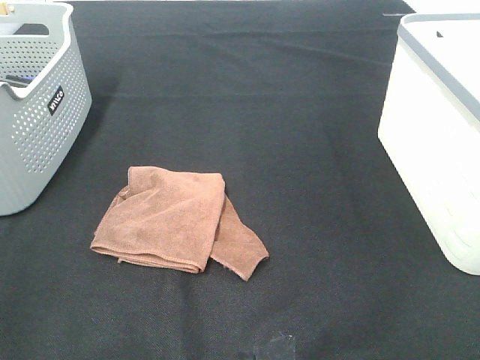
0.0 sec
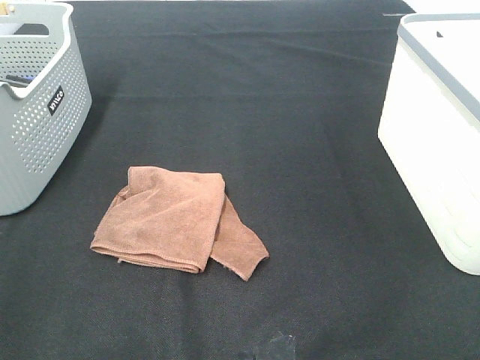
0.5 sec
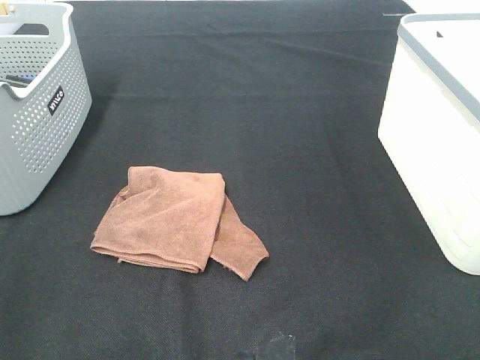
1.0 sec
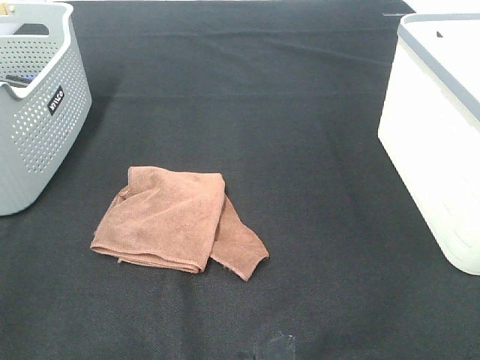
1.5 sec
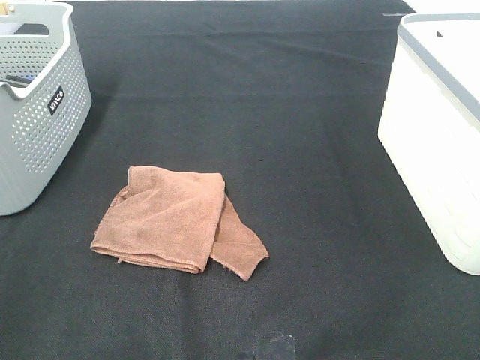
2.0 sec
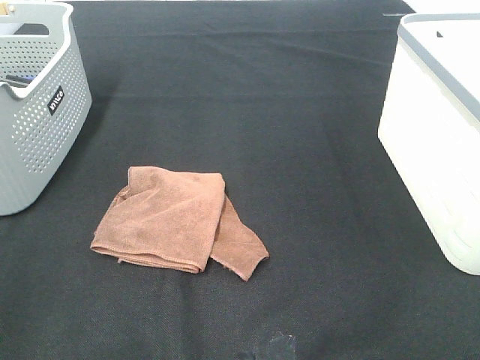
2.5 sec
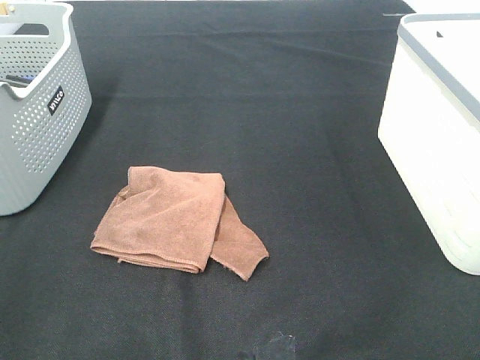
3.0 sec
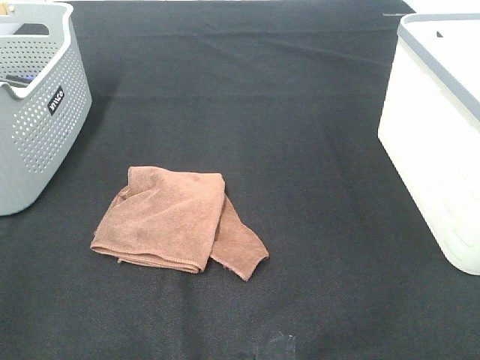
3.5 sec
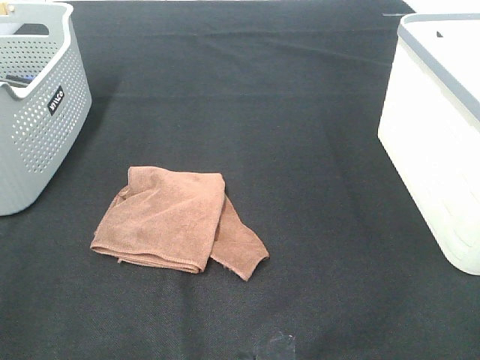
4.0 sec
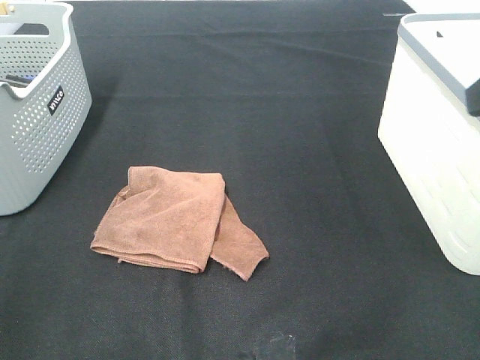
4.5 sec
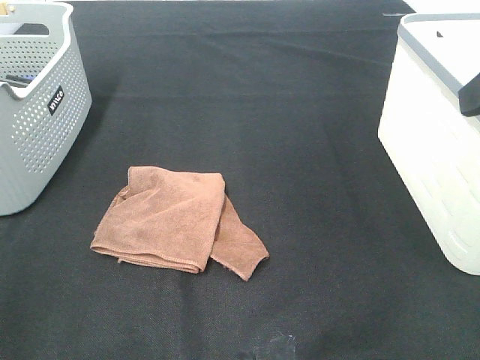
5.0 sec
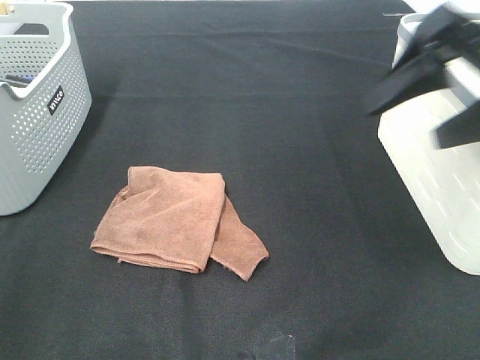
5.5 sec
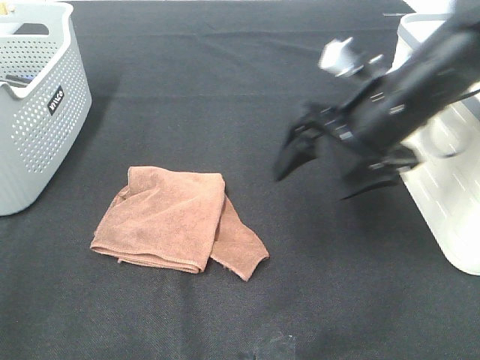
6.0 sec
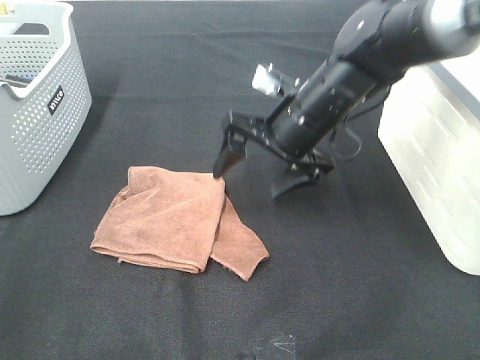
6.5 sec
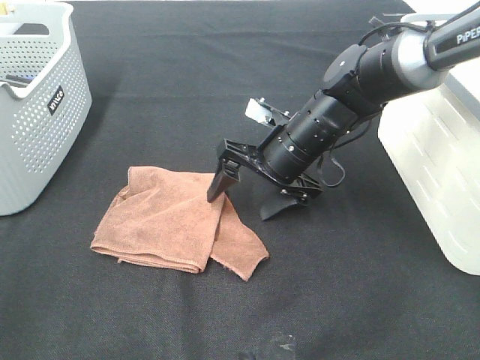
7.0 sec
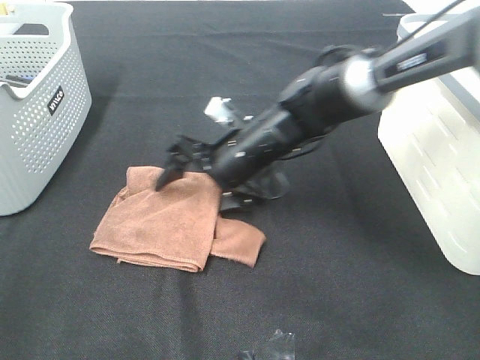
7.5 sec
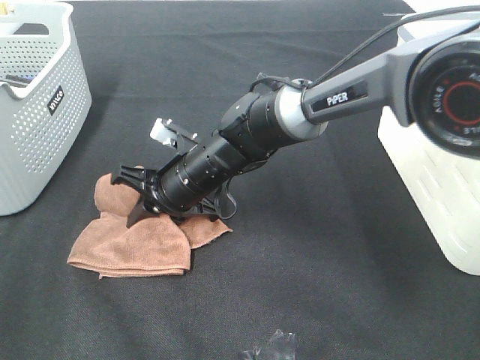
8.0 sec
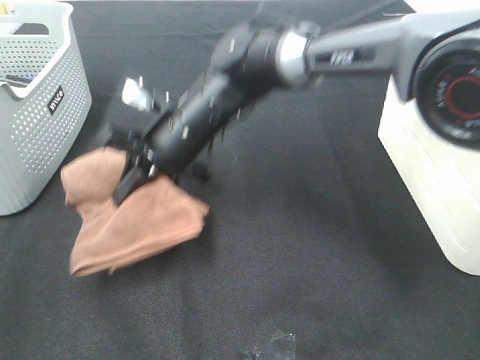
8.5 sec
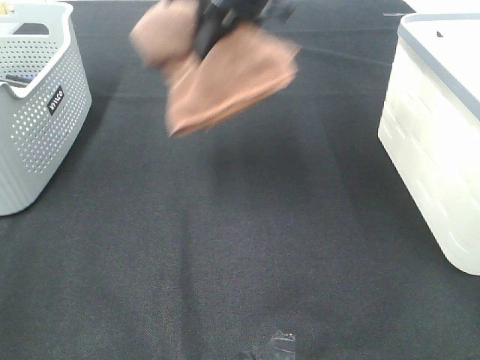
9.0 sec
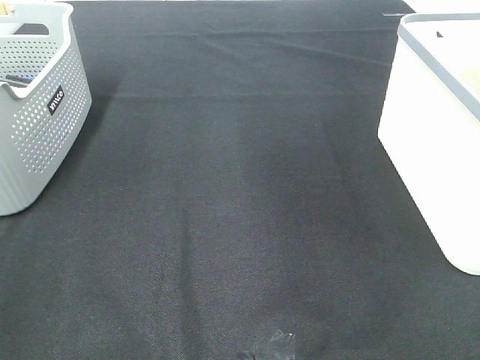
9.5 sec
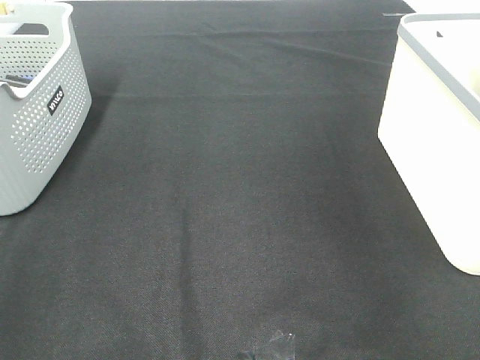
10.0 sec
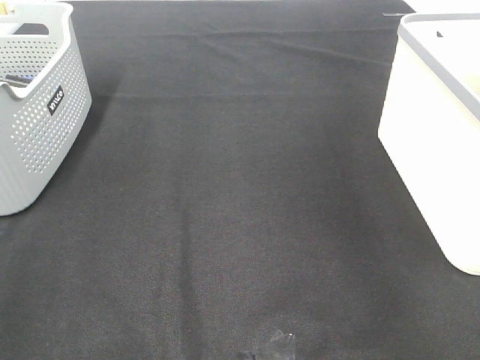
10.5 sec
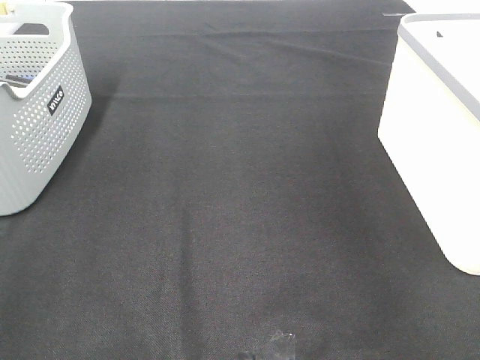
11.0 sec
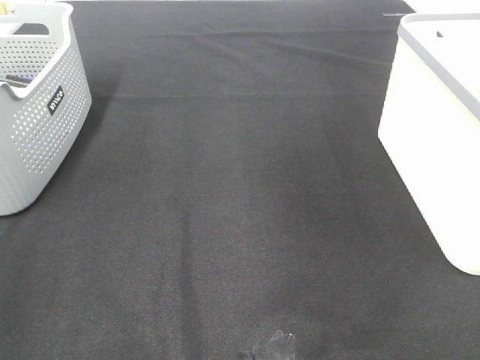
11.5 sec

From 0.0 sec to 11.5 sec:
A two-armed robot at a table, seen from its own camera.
Step, from 0.0 sec to 8.0 sec: Right hand: grab the folded brown towel.
Step, from 8.5 sec to 11.0 sec: Right hand: place the brown towel in right basket.
From 0.0 sec to 2.0 sec: Both grippers stay put.
From 4.0 sec to 6.0 sec: The right gripper heads forward, downward and to the left, covering some 30 cm.
From 6.0 sec to 7.5 sec: The right gripper goes some 20 cm to the left and downward.
From 7.5 sec to 9.5 sec: The right gripper is displaced upward and to the right by approximately 50 cm, and closes.

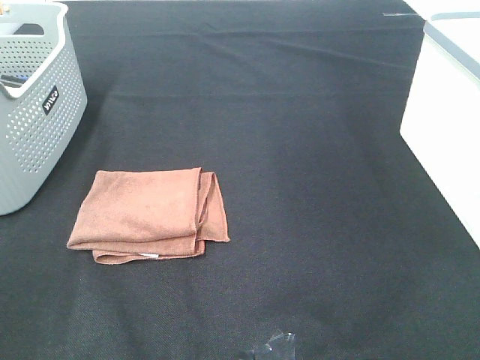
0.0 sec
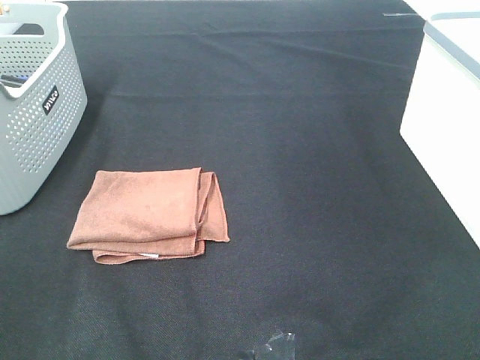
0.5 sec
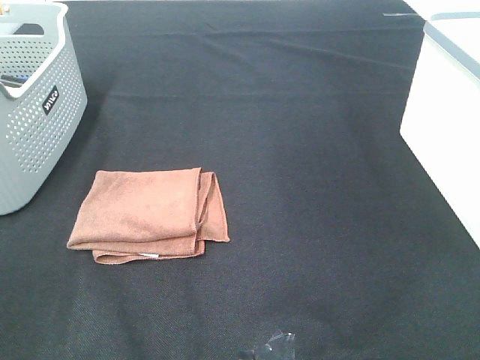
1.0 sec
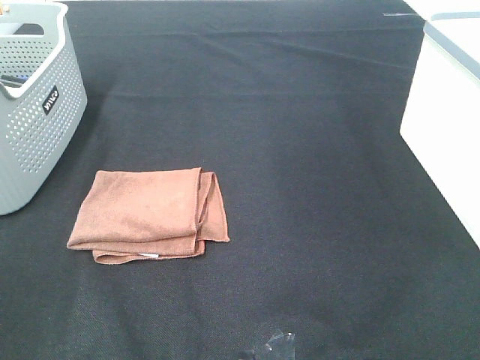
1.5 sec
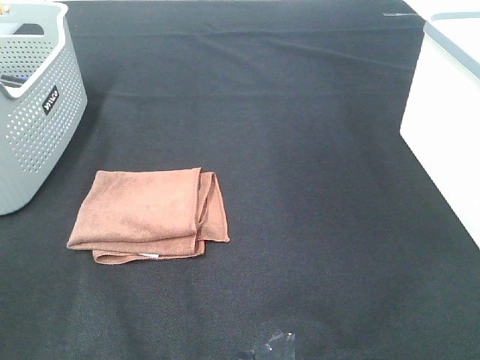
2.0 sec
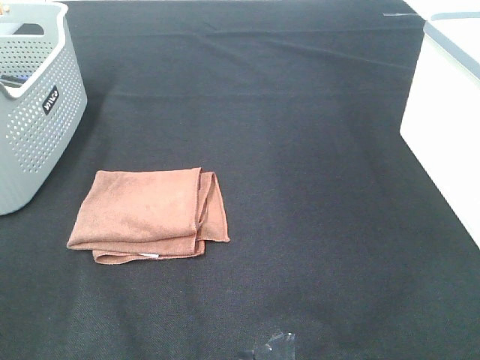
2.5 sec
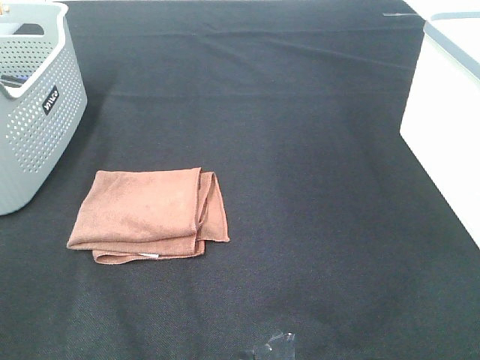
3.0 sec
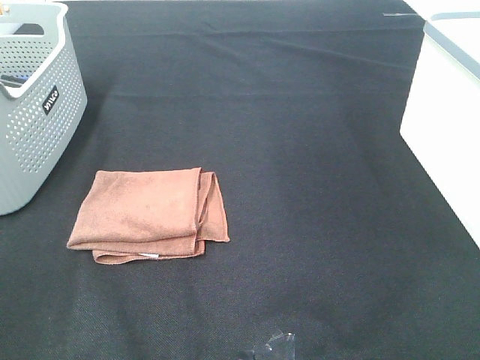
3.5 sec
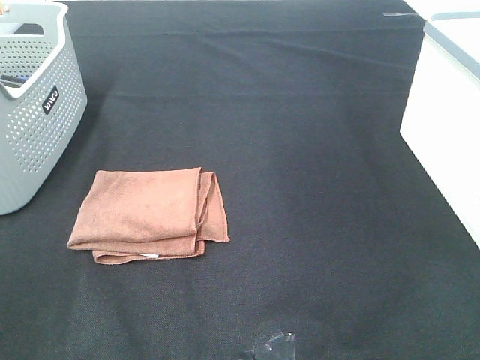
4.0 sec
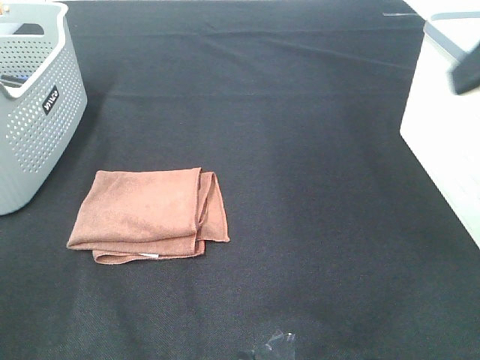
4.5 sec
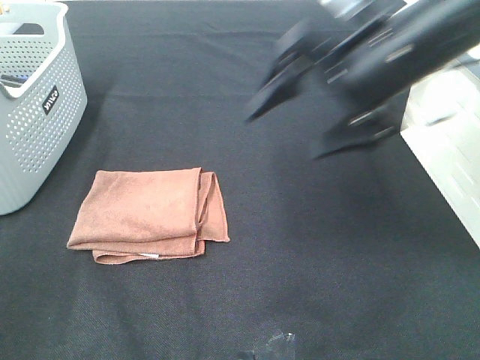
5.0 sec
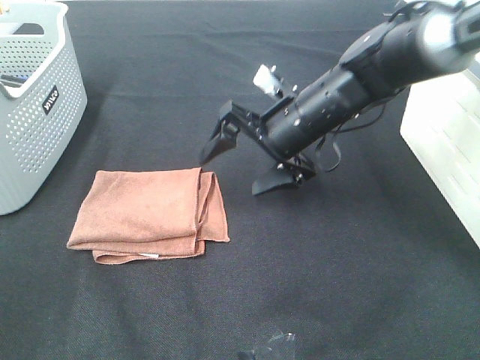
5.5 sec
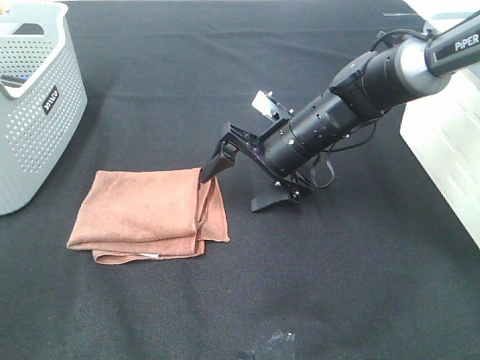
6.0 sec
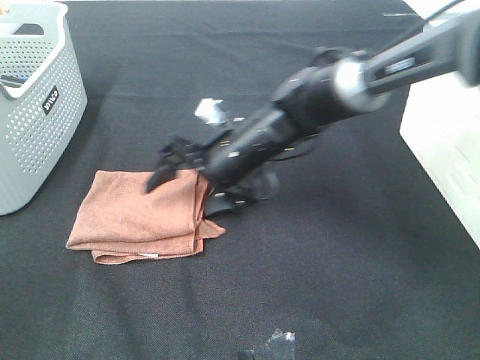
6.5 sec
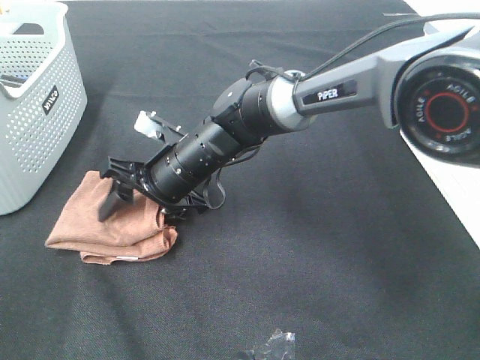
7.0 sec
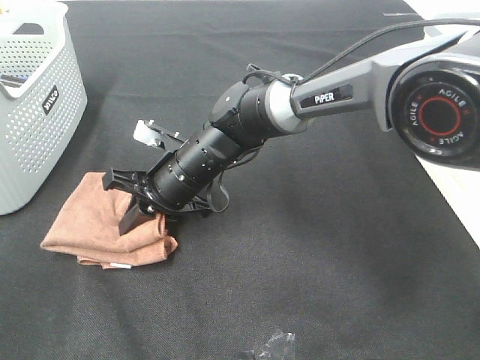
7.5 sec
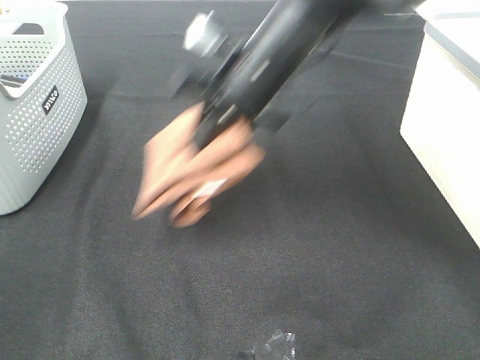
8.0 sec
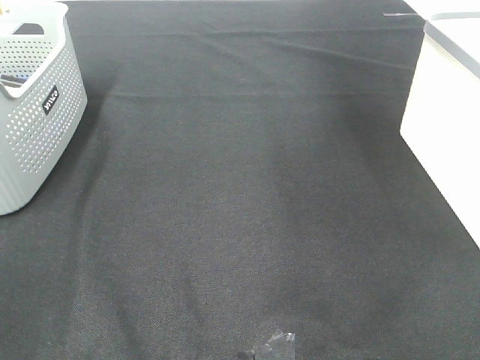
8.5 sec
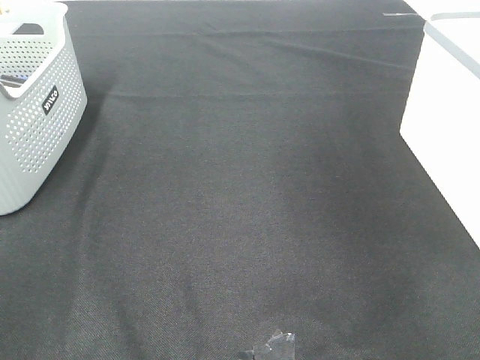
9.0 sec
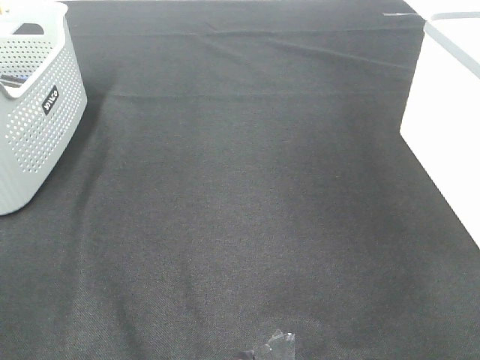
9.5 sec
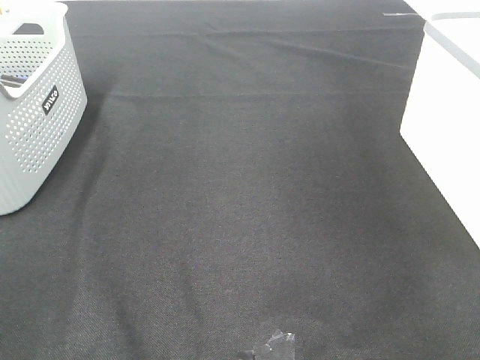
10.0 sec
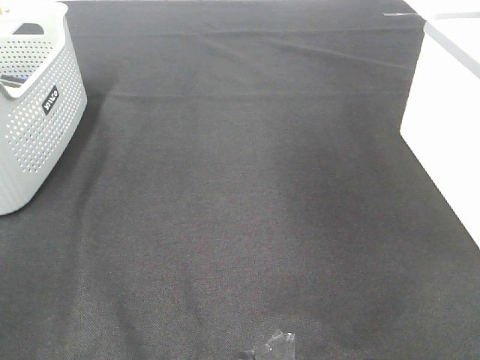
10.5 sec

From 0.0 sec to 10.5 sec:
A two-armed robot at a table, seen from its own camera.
Step, from 0.0 sec to 7.0 sec: Right hand: grab the folded brown towel.
Step, from 7.5 sec to 9.5 sec: Right hand: place the brown towel in right basket.
From 0.0 sec to 2.0 sec: Both grippers stay put.
From 4.0 sec to 6.5 sec: The right gripper is displaced downward, to the left and forward by approximately 50 cm.
From 6.5 sec to 8.5 sec: The right gripper heads upward and to the right, covering approximately 40 cm, and closes up.

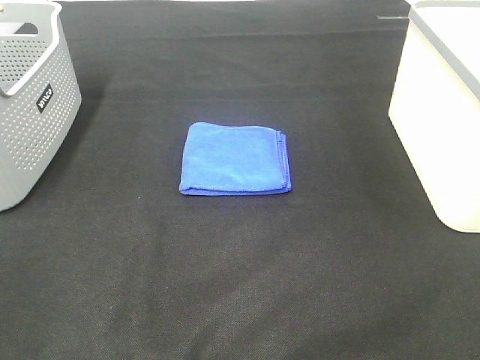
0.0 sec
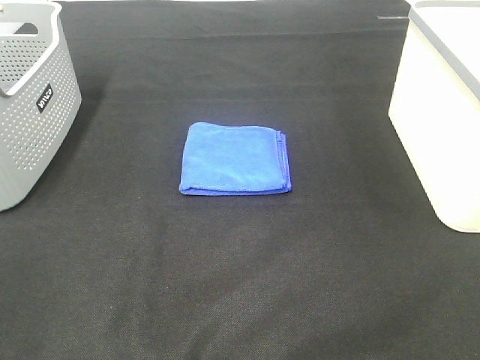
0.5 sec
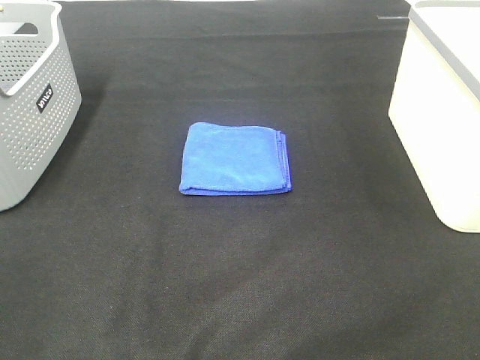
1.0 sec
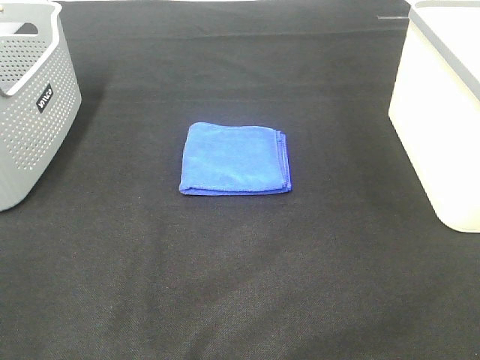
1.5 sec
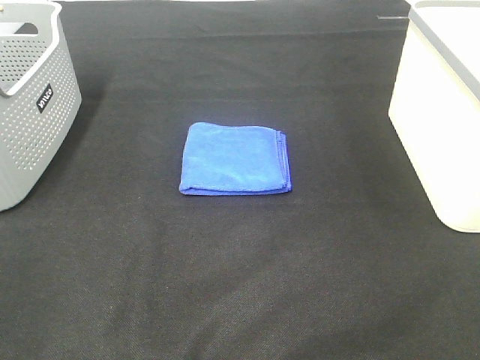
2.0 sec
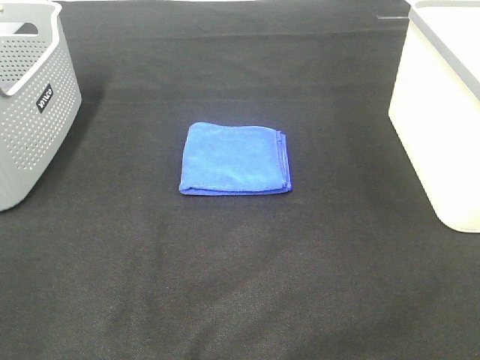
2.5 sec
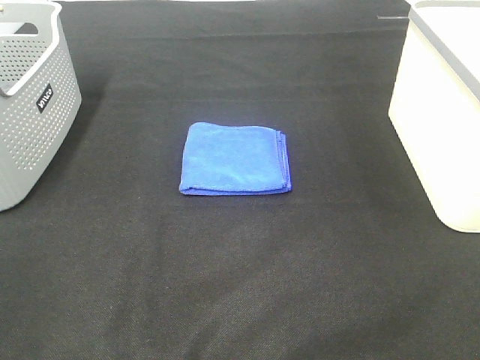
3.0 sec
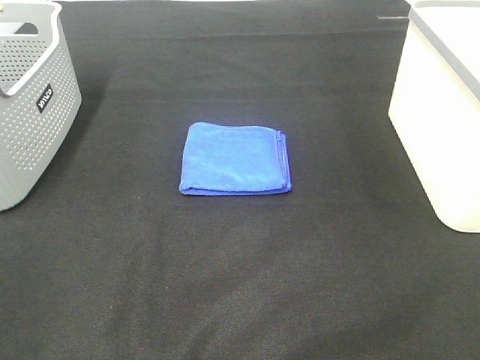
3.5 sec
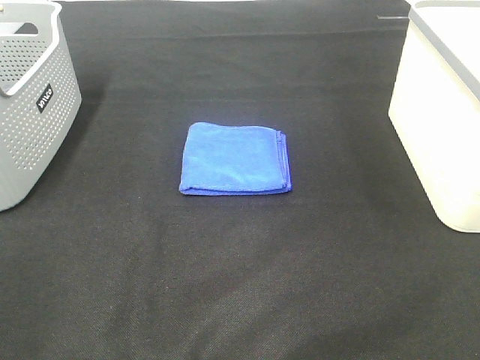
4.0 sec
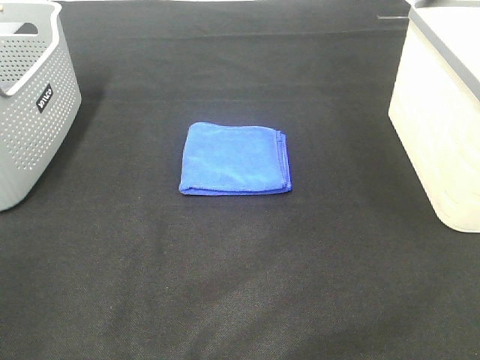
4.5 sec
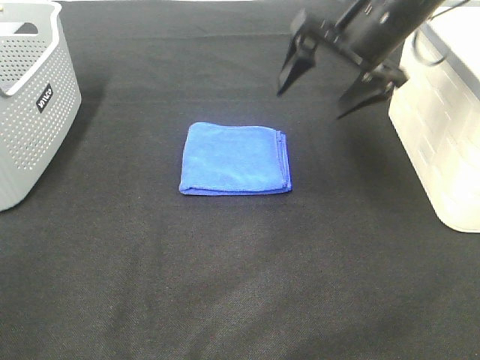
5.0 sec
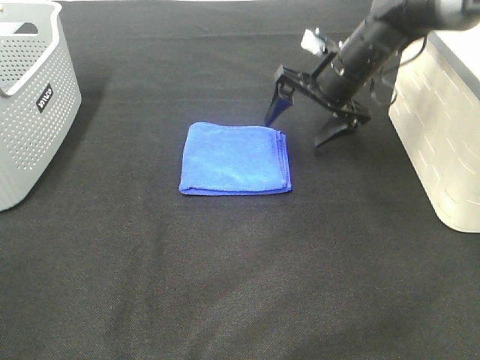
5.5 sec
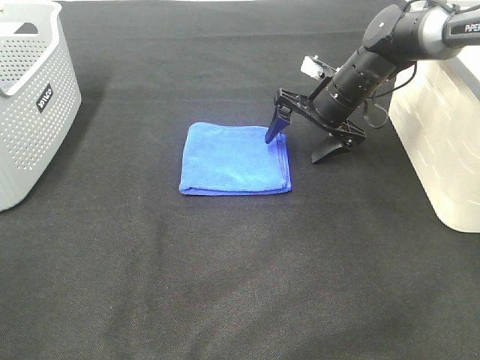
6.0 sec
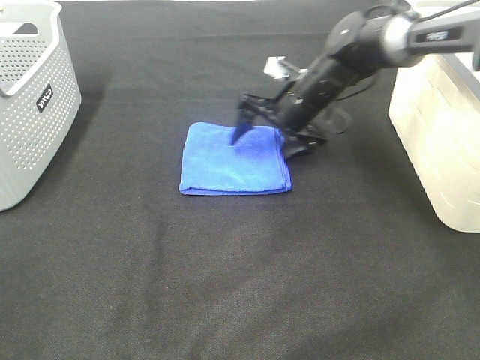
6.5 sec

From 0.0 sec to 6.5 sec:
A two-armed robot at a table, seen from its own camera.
From 0.0 sec to 2.0 sec: The two grippers keep their place.
From 4.5 sec to 6.5 sec: The right gripper travels downward, forward and to the left by roughly 35 cm.
